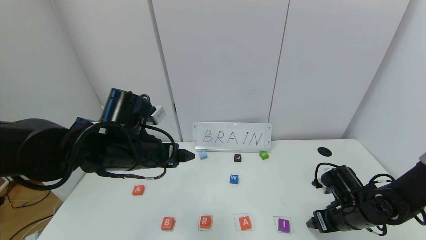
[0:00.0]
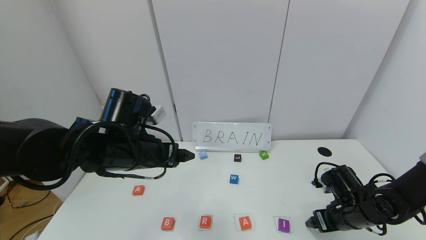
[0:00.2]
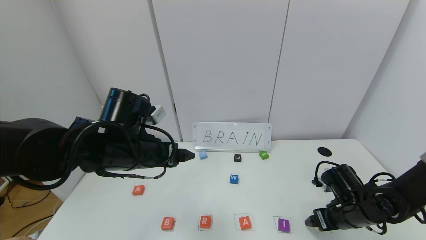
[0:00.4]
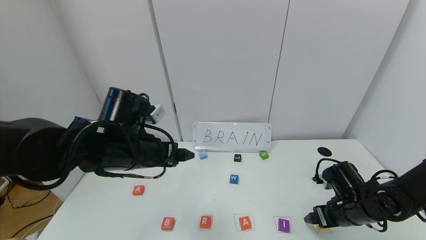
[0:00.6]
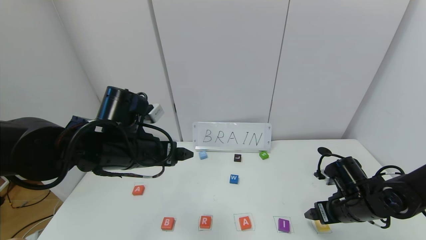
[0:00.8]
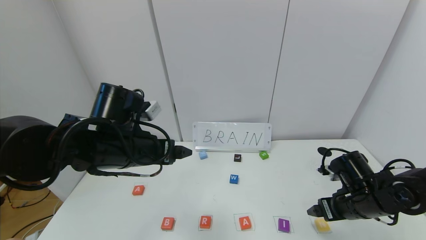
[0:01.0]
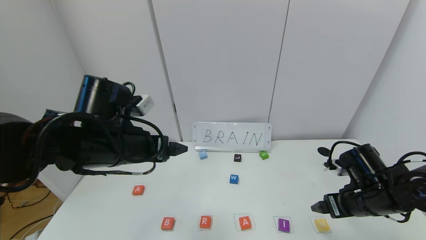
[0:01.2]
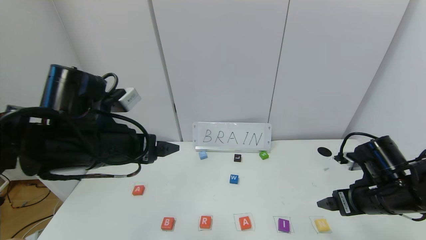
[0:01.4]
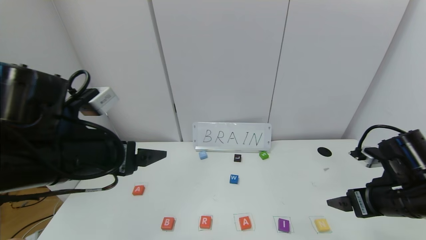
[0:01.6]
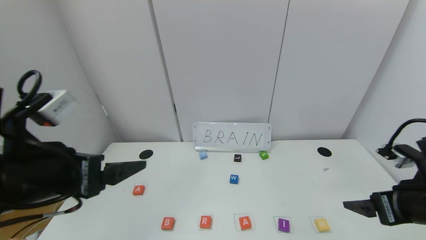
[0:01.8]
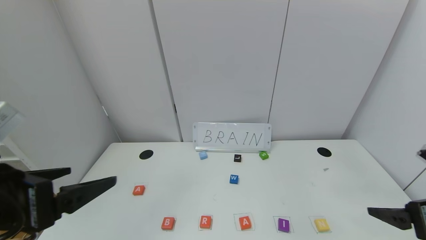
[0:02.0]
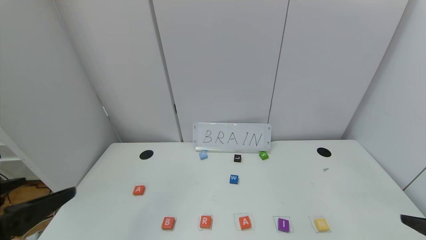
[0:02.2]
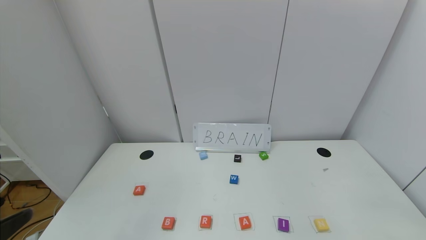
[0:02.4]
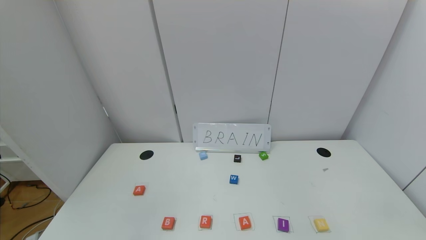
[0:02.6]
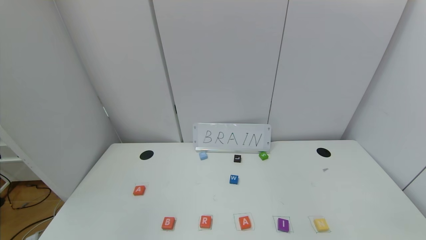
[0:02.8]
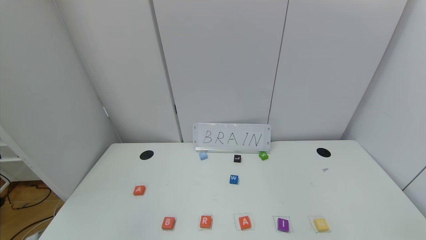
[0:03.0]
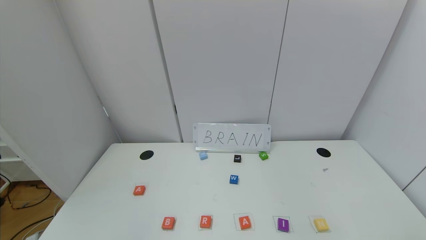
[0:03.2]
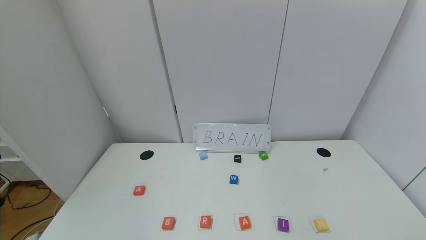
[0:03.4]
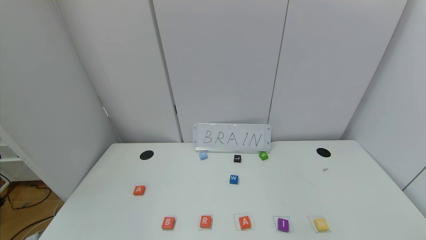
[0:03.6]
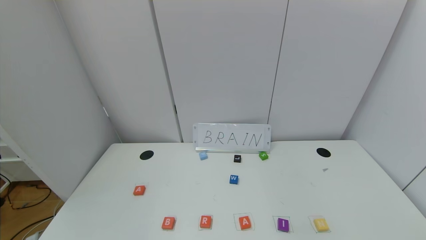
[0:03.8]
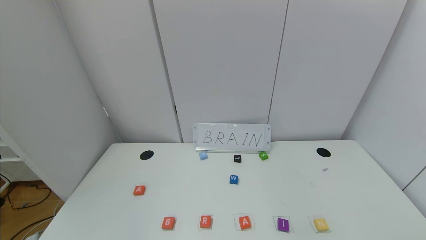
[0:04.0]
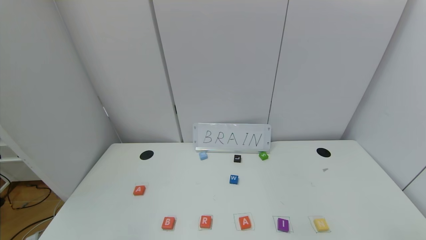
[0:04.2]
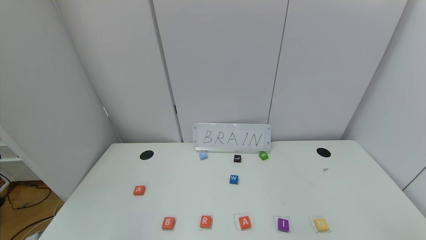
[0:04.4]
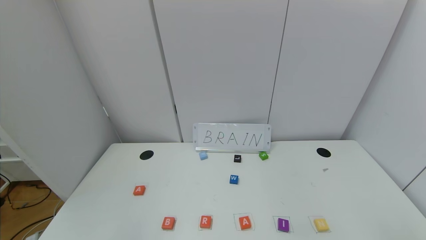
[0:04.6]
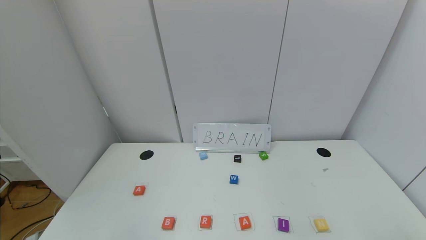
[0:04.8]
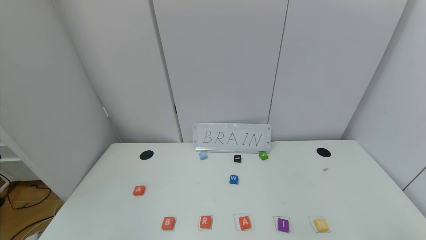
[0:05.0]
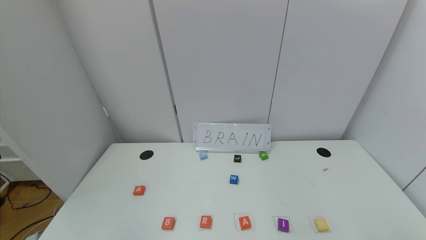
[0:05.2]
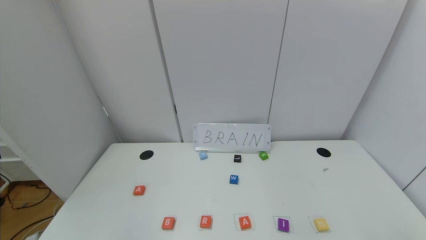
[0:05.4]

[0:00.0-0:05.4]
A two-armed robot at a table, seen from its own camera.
Task of the whole recording: use the gripper to find blocks with the letters b, a, a, and i on the table and arrange them into BAAI, then find r and N and turn the arranged baai into brian.
0:00.0 to 0:01.4: The left gripper shifts by some 5 cm. Meanwhile the right gripper goes about 10 cm upward.
0:01.4 to 0:02.8: The grippers both shift backward by roughly 25 cm.
